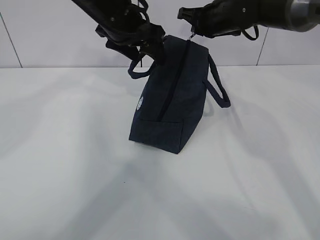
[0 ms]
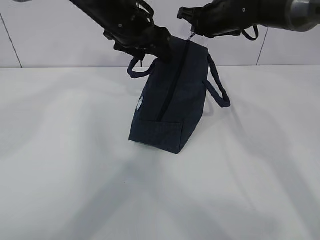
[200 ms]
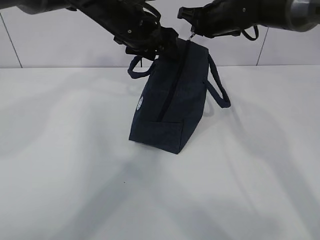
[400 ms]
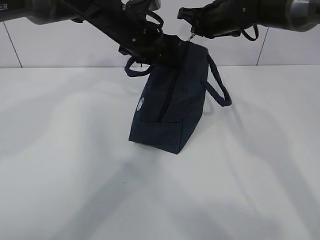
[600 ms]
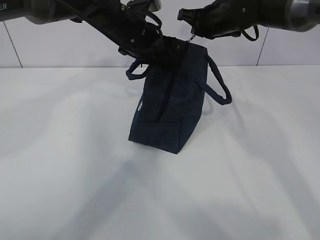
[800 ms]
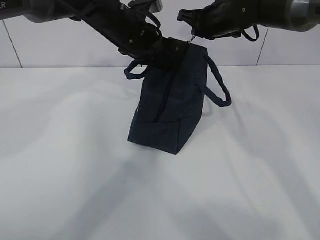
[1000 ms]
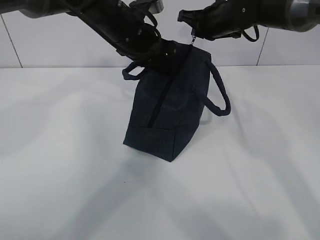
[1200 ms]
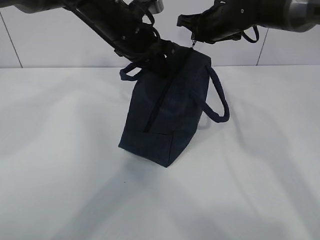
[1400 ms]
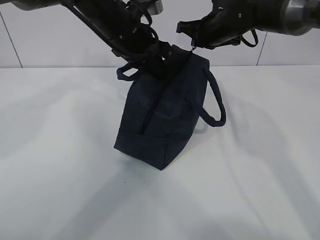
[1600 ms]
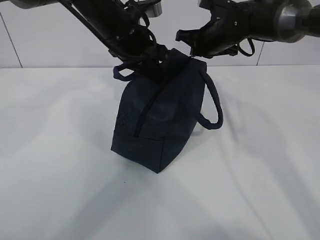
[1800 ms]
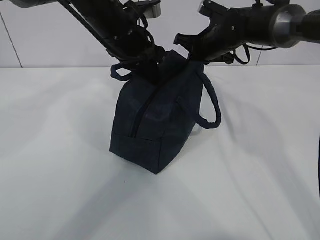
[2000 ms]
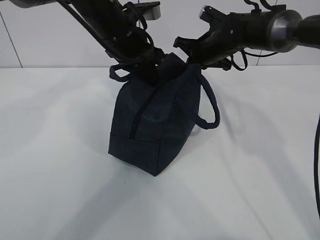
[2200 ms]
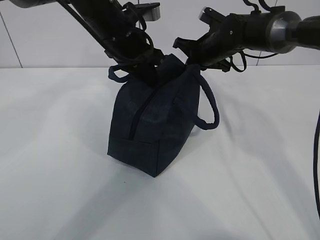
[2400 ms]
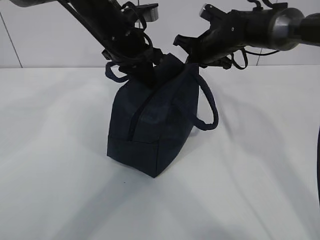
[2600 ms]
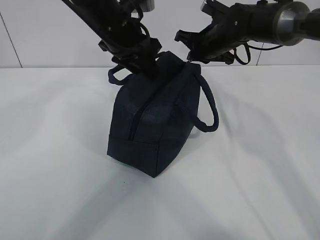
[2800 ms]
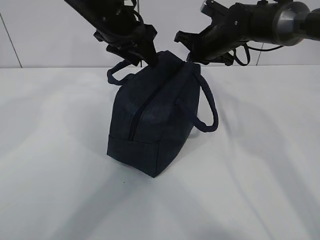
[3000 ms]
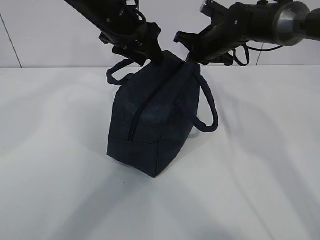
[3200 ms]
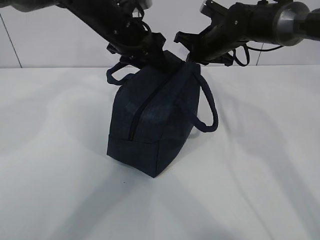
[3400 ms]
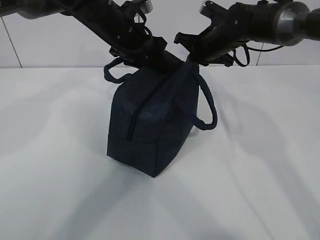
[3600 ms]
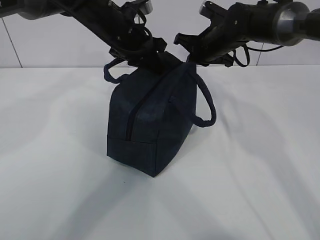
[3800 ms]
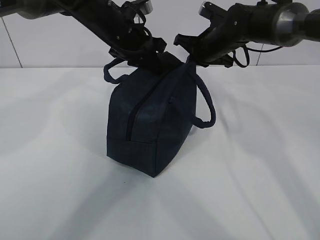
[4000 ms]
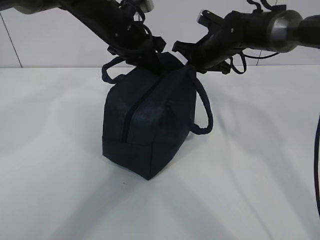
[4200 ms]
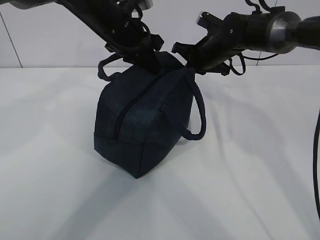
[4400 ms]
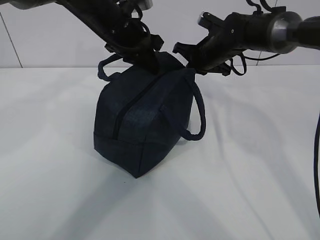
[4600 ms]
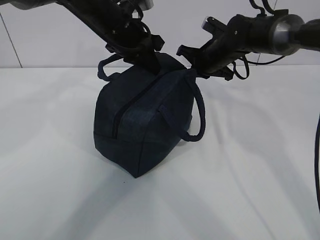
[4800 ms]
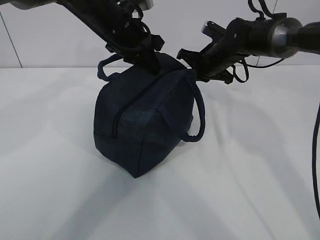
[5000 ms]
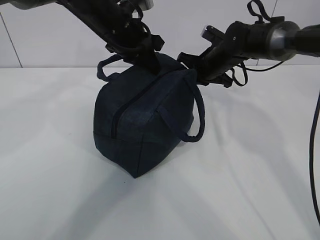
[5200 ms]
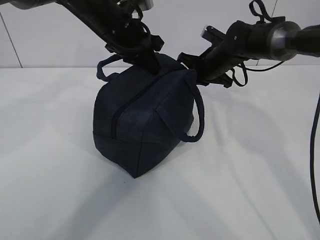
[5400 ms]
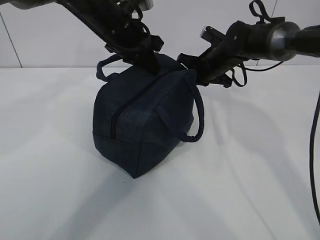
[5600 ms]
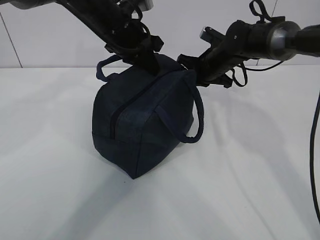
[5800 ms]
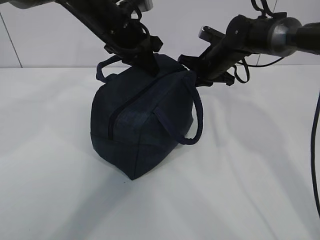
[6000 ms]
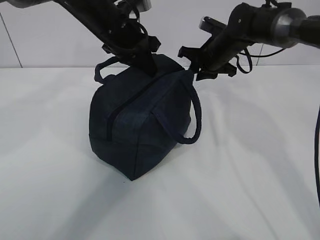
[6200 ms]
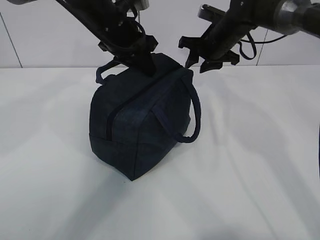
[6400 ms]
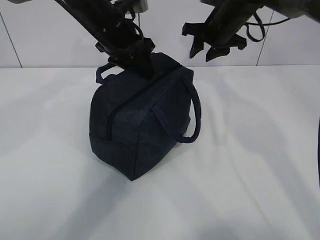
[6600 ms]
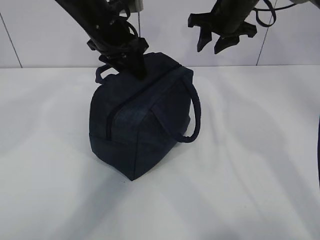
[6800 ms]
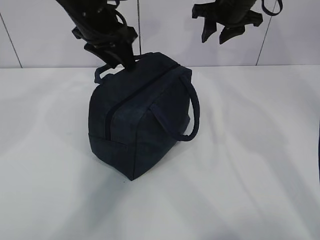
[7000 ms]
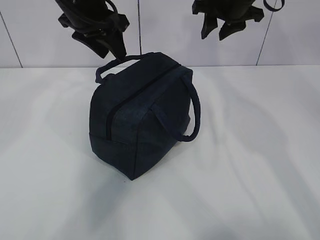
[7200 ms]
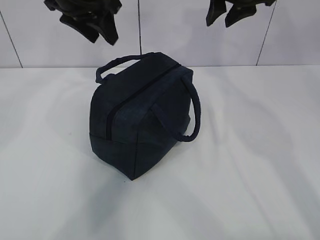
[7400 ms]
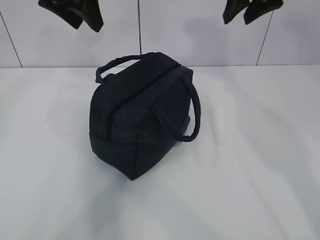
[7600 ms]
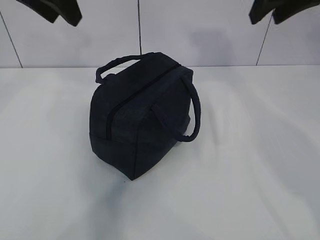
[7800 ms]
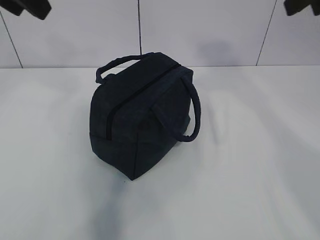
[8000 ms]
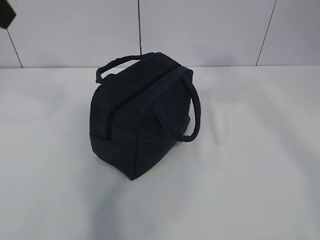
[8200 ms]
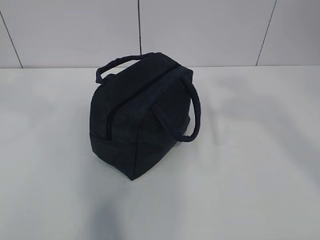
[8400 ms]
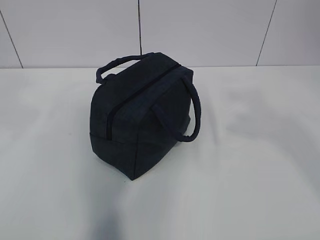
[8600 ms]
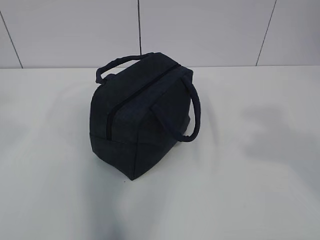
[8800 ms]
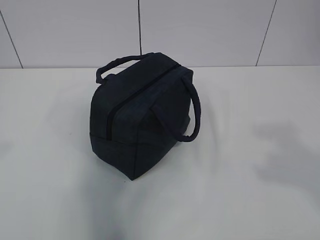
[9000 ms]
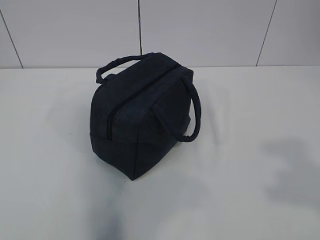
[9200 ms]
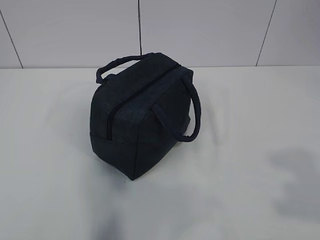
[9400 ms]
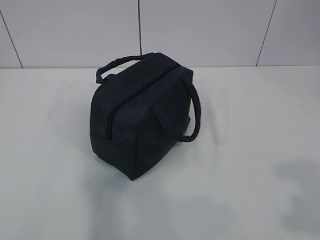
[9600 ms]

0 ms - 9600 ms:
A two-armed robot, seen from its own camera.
0 ms - 1600 ms: The left gripper closes.
1600 ms - 3200 ms: The left gripper opens.
3200 ms - 4800 ms: The left gripper closes.
4800 ms - 6400 ms: The right gripper opens up. Meanwhile the left gripper opens its fingers.
6400 ms - 8000 ms: The right gripper moves backward and upward, roughly 30 cm. Meanwhile the left gripper moves upward, backward and to the left, some 25 cm, and opens.
8000 ms - 9600 ms: The left gripper travels backward and to the left by roughly 30 cm. Meanwhile the right gripper travels backward and downward by about 30 cm.

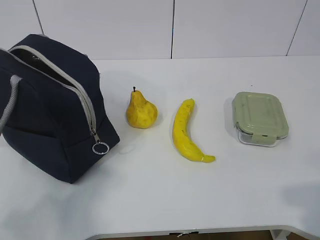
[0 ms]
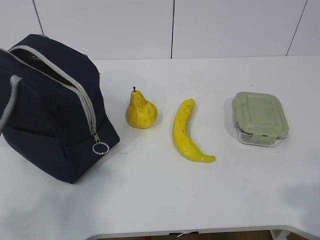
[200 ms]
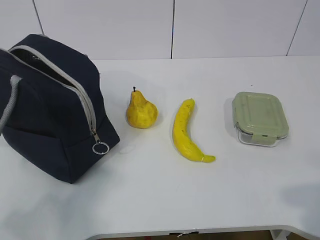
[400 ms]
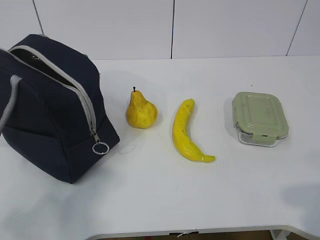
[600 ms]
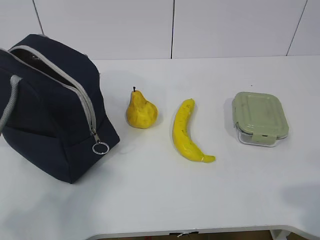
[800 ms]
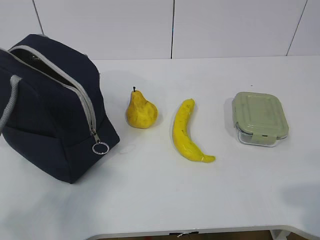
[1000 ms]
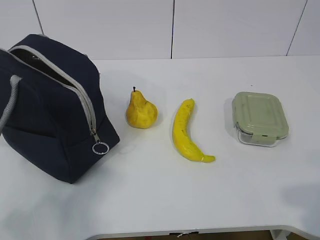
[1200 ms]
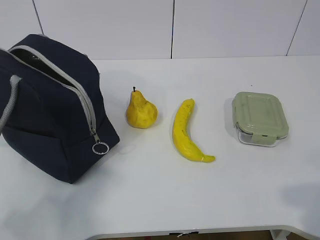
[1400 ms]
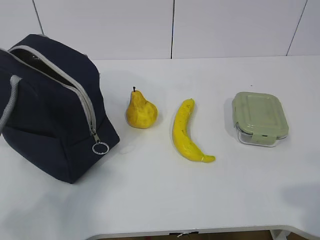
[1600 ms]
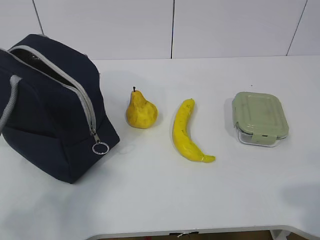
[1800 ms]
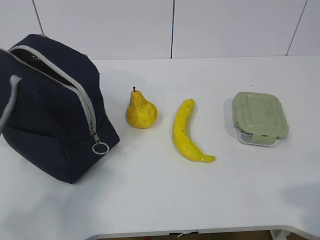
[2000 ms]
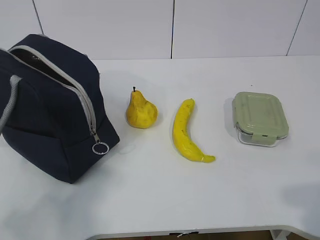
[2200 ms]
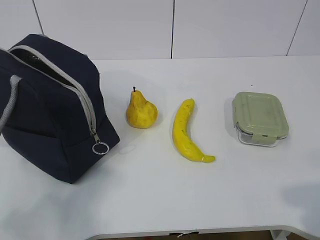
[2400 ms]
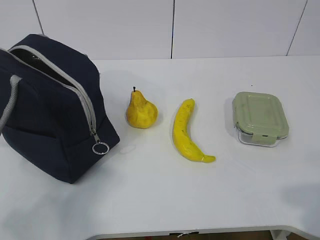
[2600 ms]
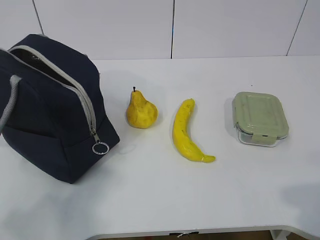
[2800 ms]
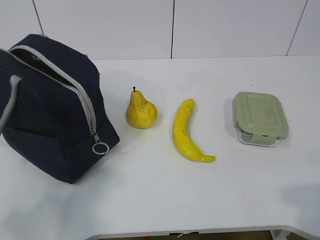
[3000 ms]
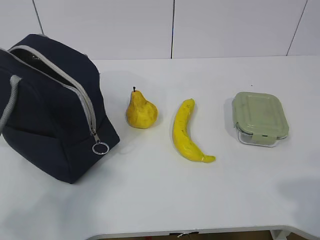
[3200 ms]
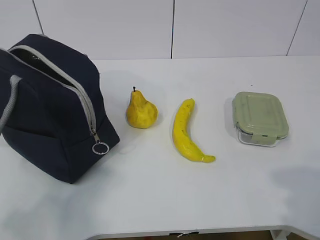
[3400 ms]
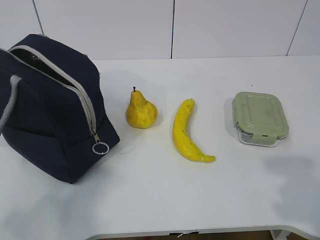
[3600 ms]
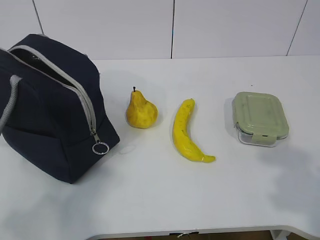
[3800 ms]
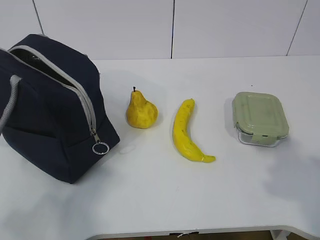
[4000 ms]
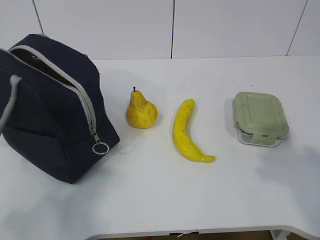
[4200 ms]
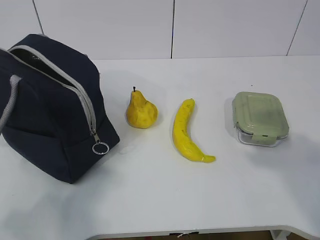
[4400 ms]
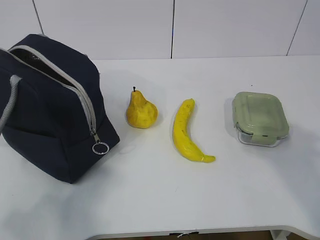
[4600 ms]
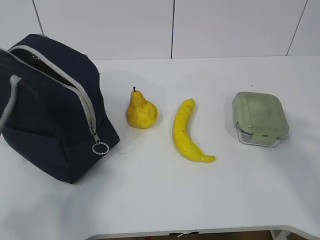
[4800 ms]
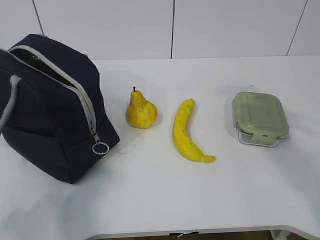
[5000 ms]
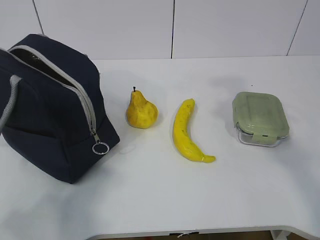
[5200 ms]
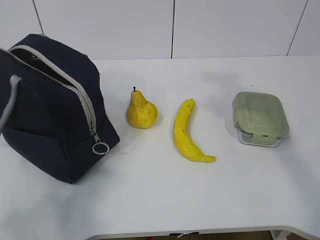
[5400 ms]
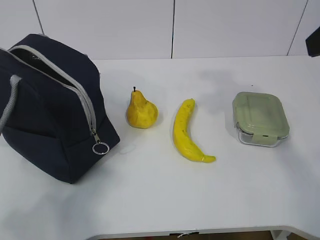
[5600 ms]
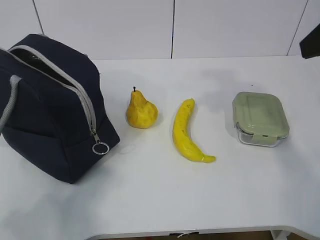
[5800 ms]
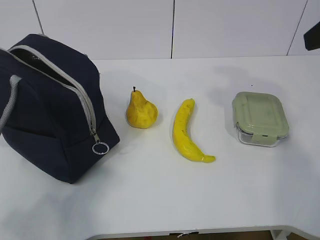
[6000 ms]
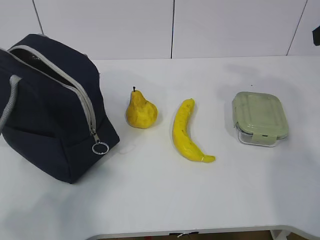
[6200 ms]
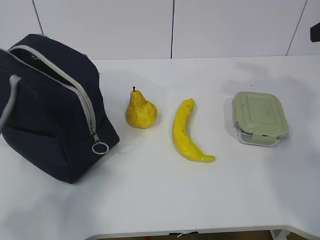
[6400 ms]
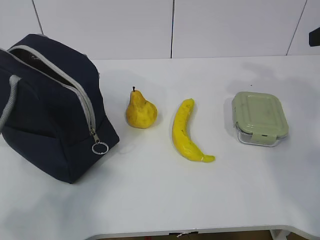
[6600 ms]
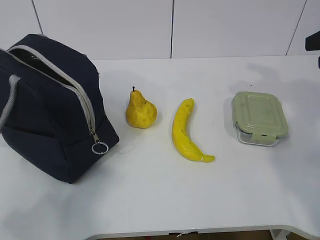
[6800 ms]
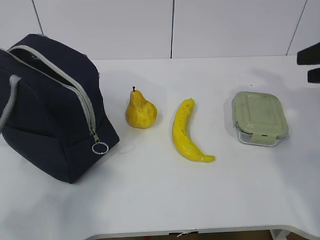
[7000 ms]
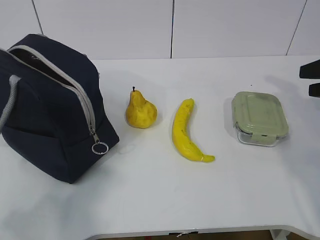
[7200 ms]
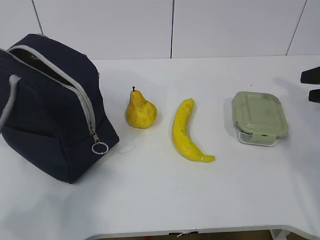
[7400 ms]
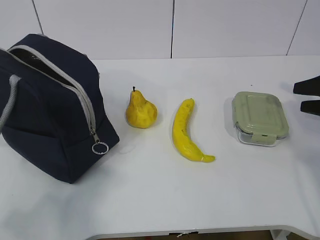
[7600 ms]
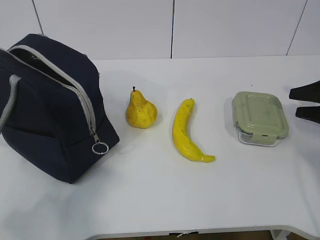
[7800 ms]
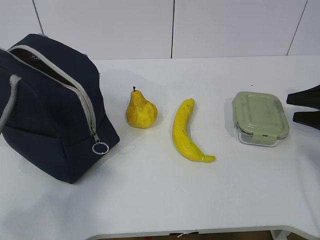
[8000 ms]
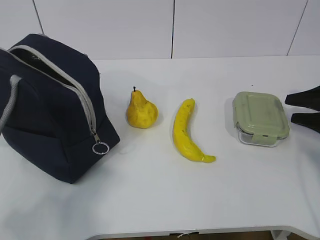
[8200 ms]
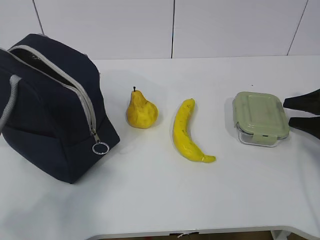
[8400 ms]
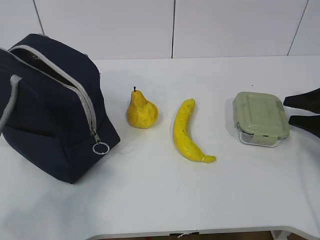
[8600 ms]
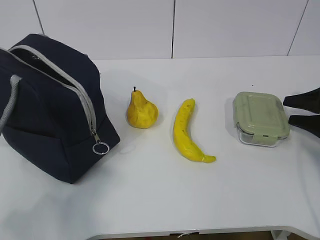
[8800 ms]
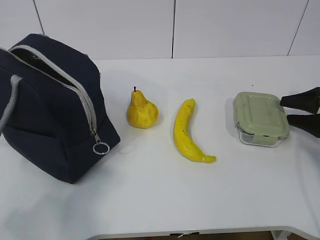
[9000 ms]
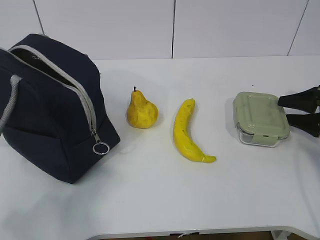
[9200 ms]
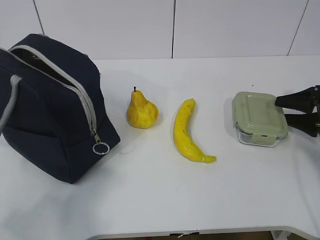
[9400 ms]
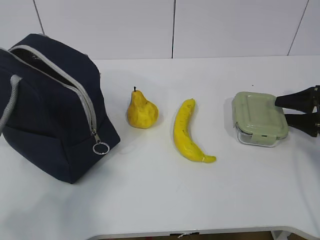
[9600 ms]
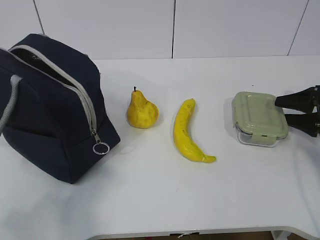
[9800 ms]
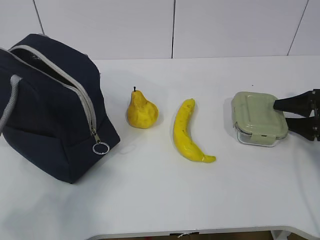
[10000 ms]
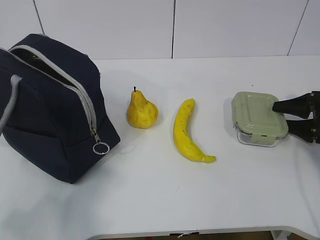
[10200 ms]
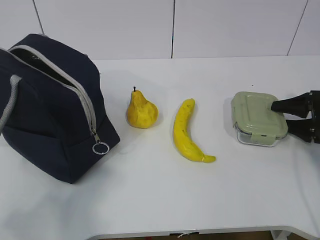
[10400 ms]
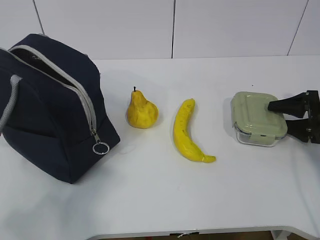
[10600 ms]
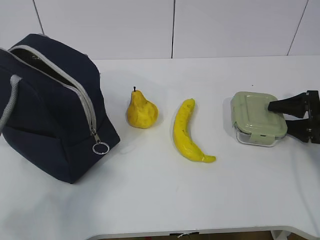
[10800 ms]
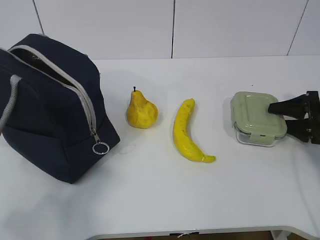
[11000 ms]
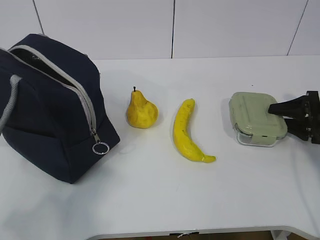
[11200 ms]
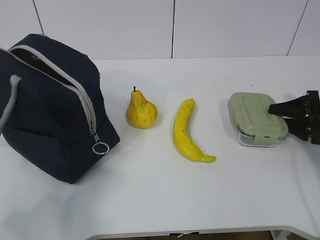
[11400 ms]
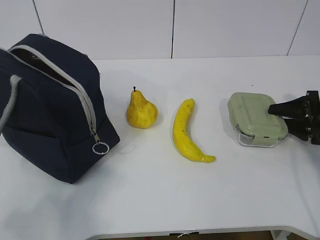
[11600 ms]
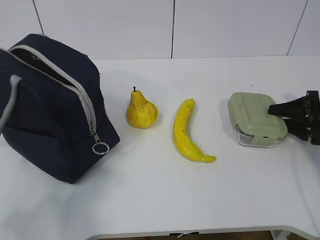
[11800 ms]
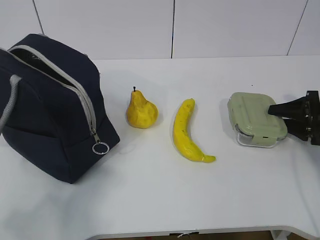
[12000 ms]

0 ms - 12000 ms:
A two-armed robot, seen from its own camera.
Step, 0 ms - 10600 ms: Grab the lunch box with your right hand.
1600 ms - 3000 ms: Both grippers stay about where they are.
3000 ms - 4400 ms: The right gripper goes about 10 cm upward and forward.
4400 ms - 6000 ms: The right gripper heads forward, covering some 20 cm.
6000 ms - 7600 ms: The right gripper moves downward, to the right and forward, some 25 cm.
7600 ms - 9000 ms: The right gripper heads downward, covering about 5 cm.
9000 ms - 10400 ms: The grippers stay close to where they were, moving slightly.
10400 ms - 12000 ms: Both grippers stay put.

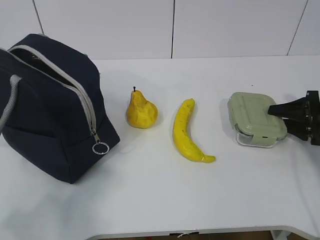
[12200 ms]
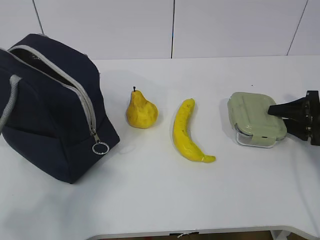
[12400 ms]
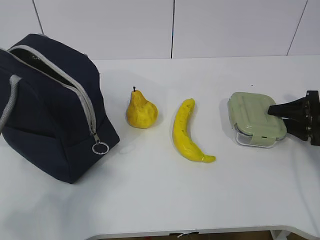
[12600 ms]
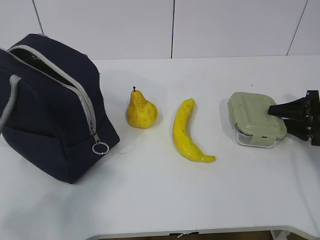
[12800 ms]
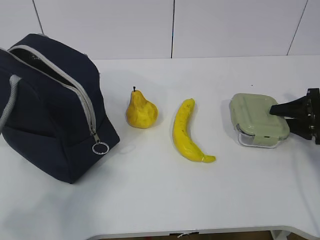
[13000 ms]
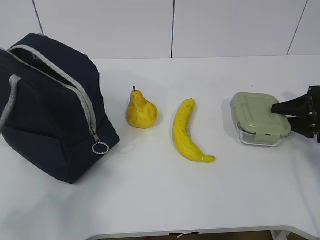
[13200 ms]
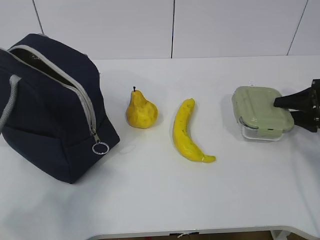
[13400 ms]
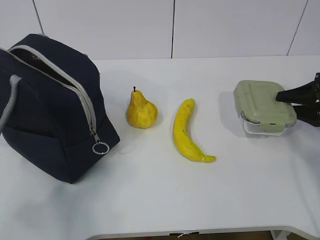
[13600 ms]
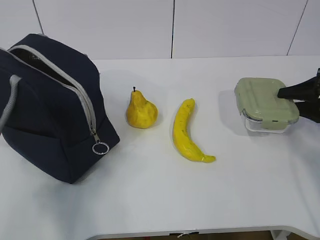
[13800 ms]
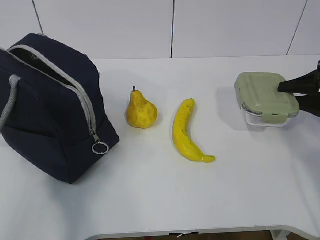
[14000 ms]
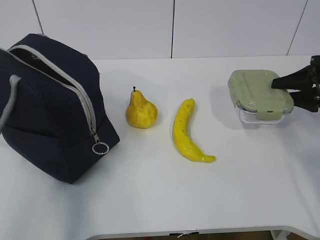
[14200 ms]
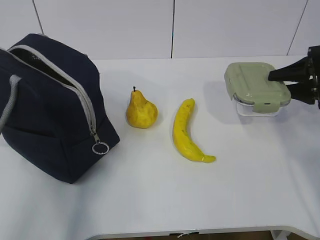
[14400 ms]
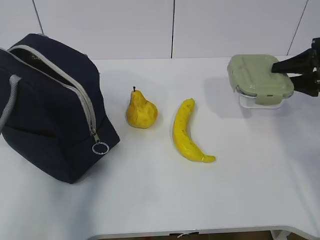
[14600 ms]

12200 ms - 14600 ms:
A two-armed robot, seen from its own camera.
12200 ms - 13400 ms: There are only small adjustments of the grippers.
13400 ms - 14600 ms: The left gripper travels forward and upward by some 10 cm. Meanwhile the right gripper heads upward, covering approximately 10 cm.
